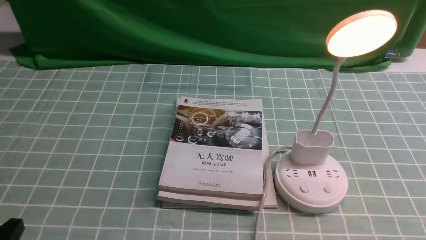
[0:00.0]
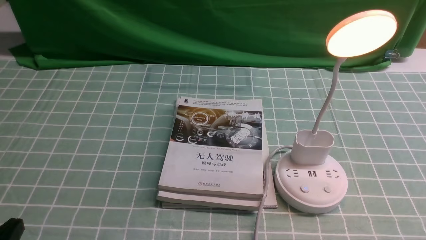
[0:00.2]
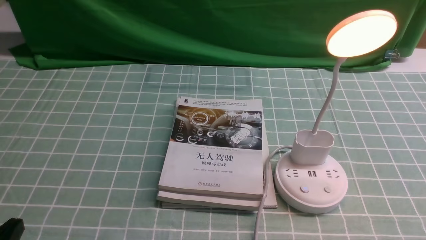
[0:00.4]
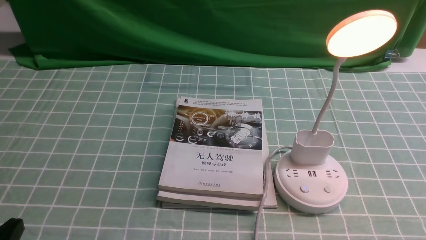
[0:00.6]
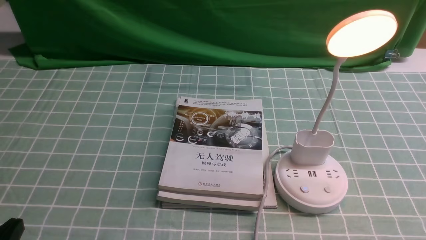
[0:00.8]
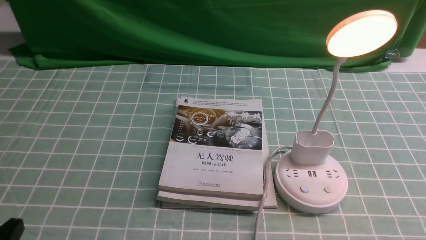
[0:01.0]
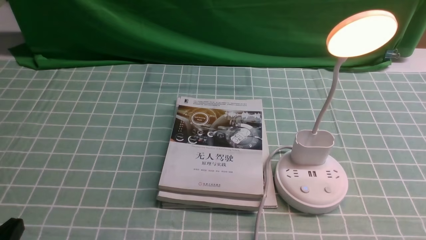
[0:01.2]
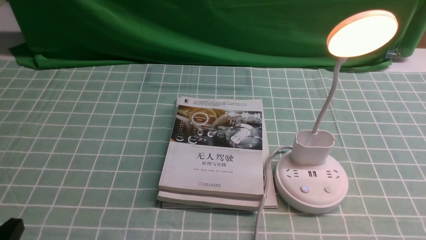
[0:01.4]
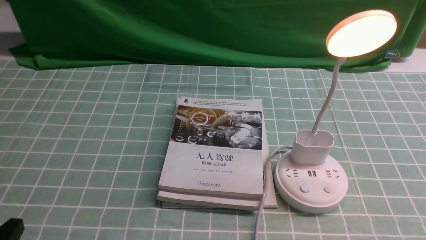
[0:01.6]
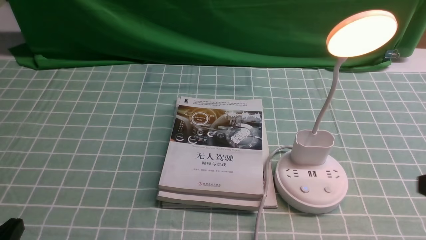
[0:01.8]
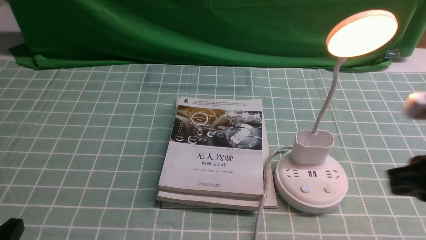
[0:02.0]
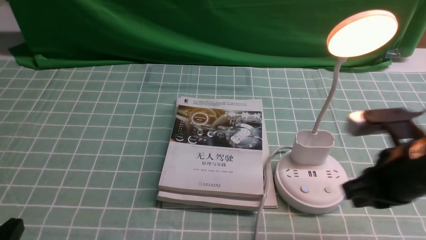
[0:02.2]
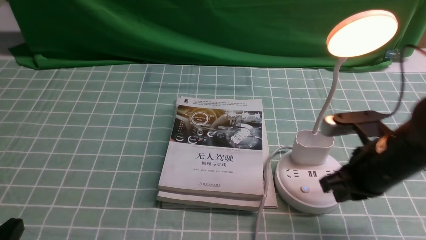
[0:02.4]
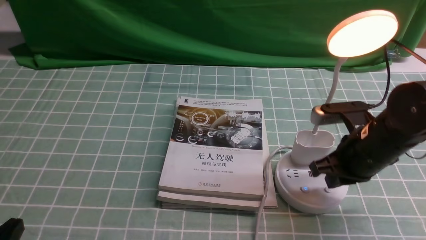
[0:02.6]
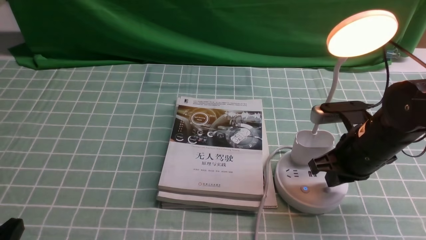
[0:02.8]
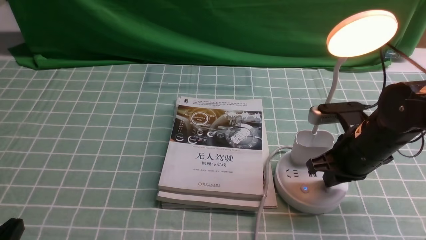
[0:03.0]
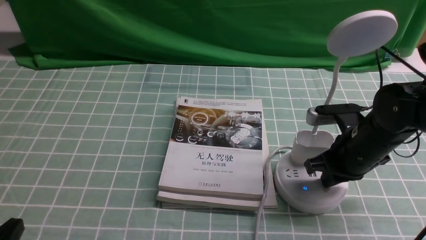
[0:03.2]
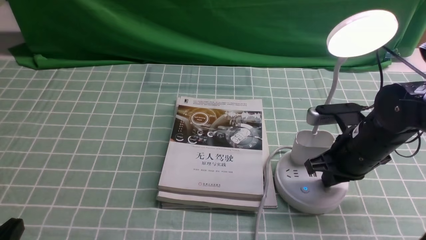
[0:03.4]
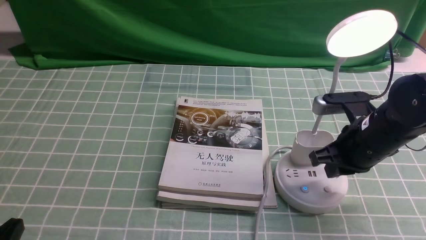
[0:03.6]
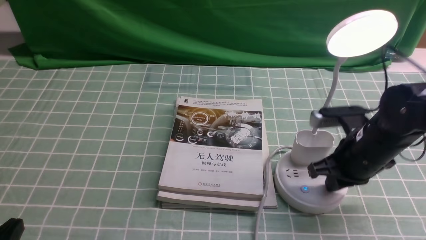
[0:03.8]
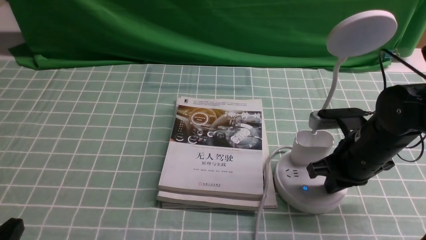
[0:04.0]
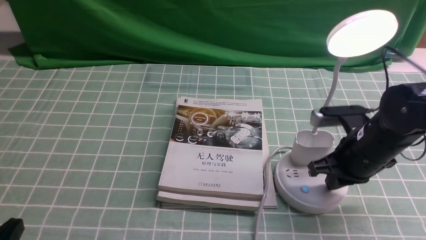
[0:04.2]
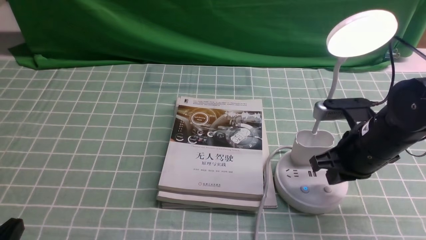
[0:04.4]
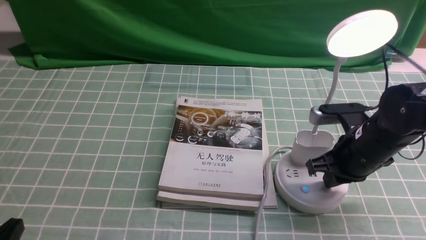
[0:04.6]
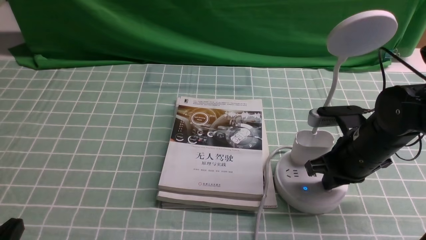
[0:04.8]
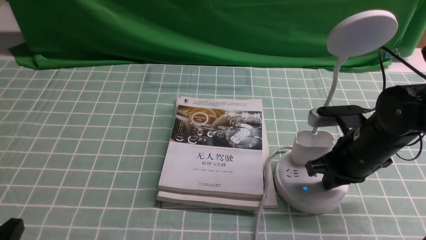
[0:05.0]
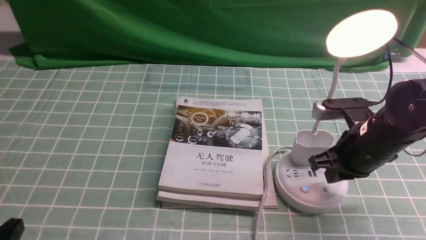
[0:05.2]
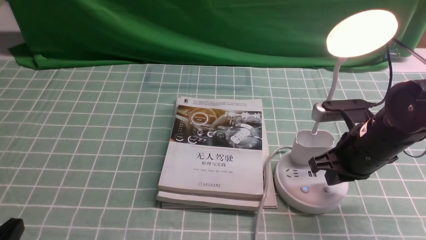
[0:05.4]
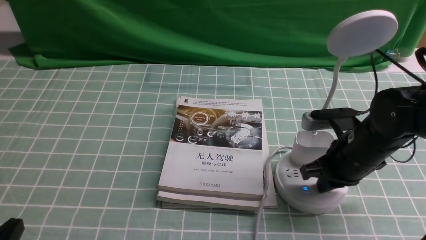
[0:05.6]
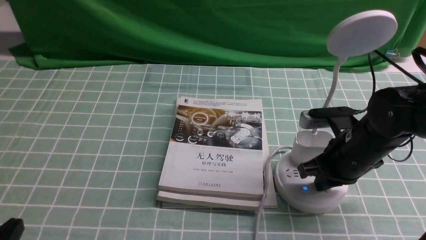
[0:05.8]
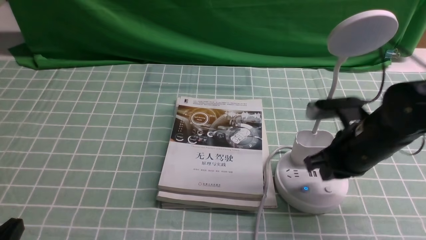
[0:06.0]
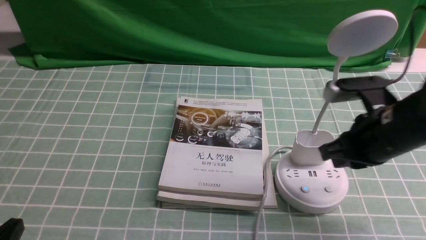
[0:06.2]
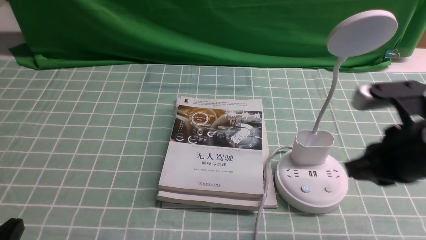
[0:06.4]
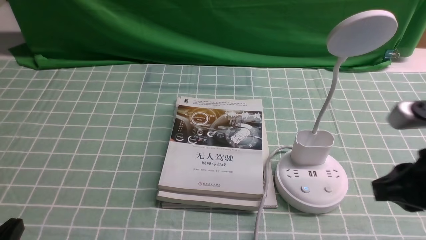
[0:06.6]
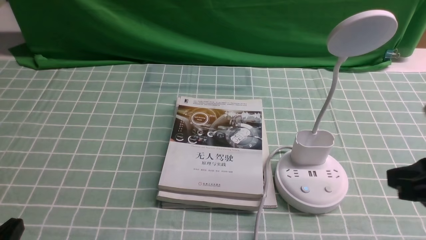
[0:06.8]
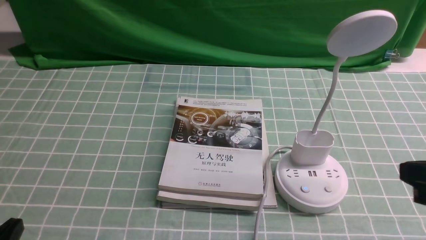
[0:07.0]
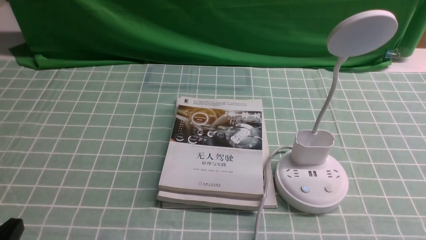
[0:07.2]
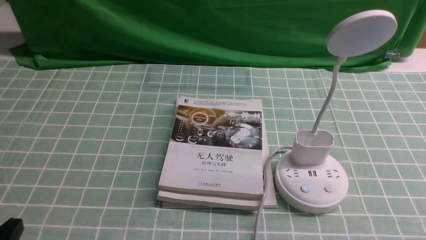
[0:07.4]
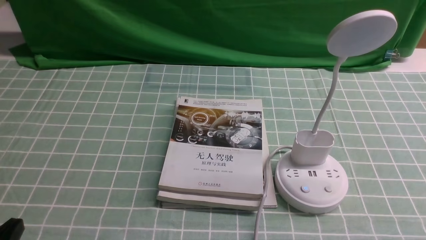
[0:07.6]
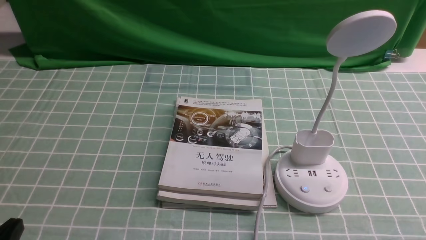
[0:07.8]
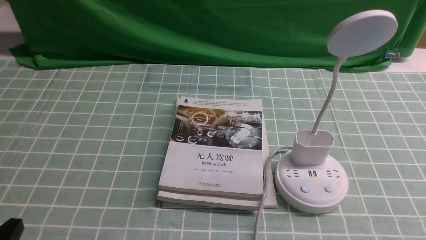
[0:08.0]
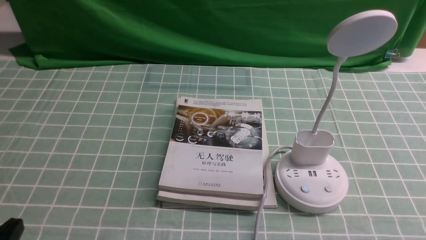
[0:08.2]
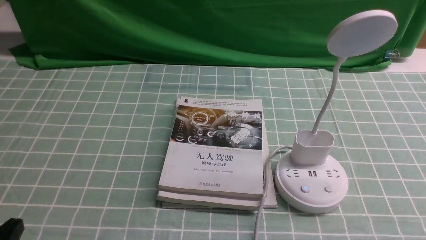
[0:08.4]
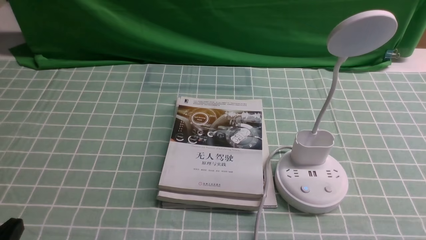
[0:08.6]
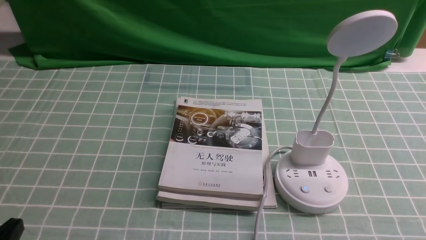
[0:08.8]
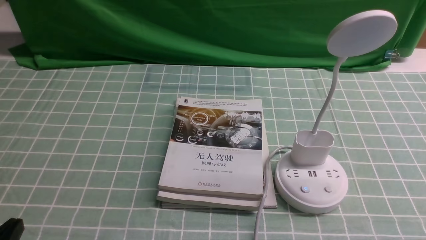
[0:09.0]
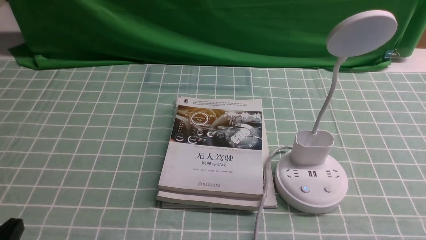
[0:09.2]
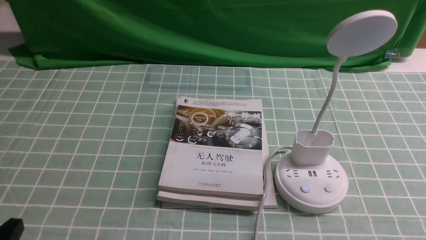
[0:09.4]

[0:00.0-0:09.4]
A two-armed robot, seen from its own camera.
Task of the whole recording: turn off the desk lamp on the blue coffee tablecloth by hand.
Step, 0:00.0 to 0:06.0: use the right arm to press the button switch on the lamp holder.
0:01.6 to 0:03.2: The right gripper heads forward, downward and to the left, covering some 25 cm.
0:03.2 to 0:04.8: Both grippers stay about where they are.
0:04.8 to 0:06.2: The right gripper moves upward, approximately 5 cm.
0:06.2 to 0:07.8: The right gripper shifts approximately 20 cm backward and to the right.
